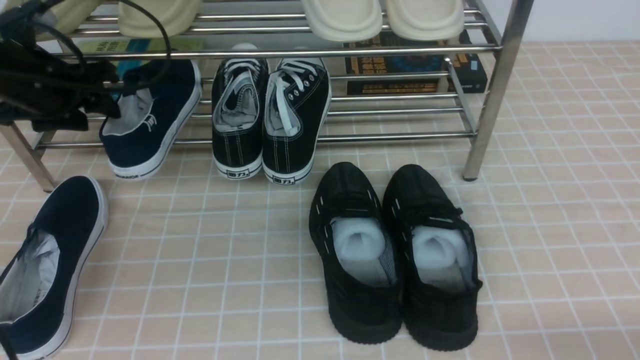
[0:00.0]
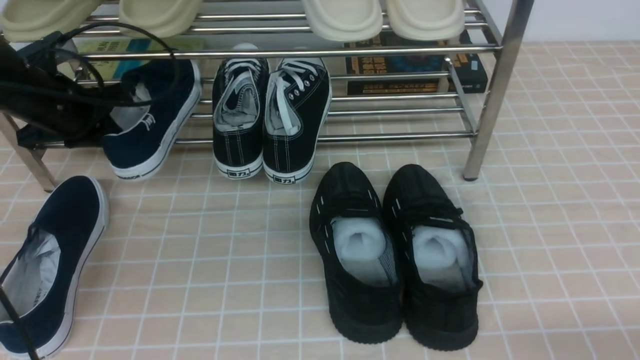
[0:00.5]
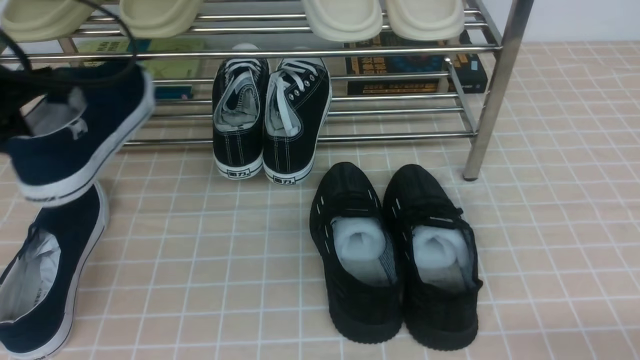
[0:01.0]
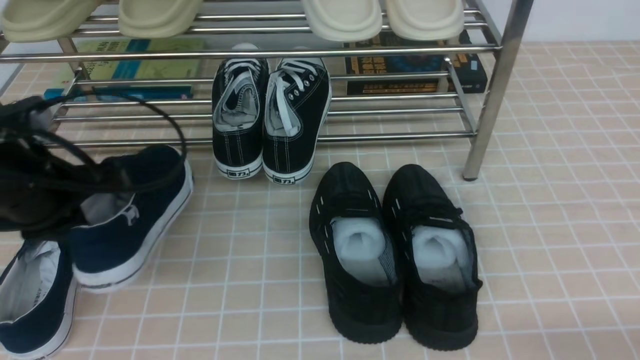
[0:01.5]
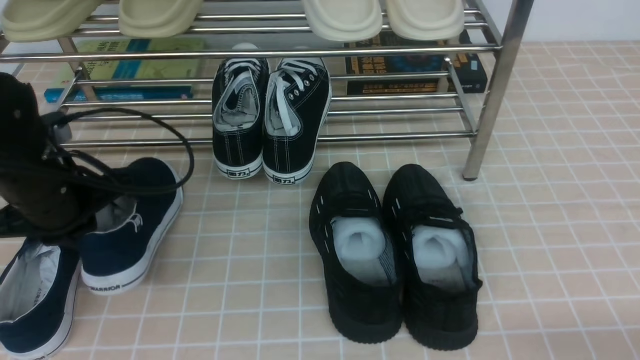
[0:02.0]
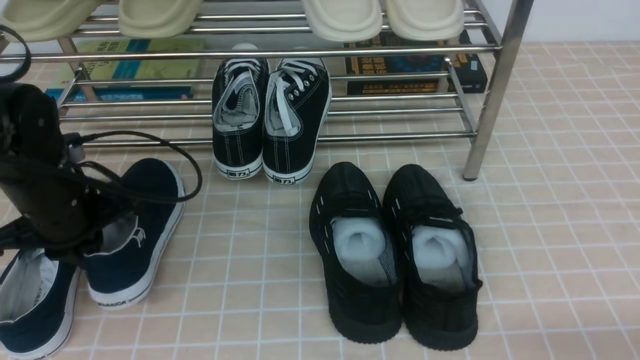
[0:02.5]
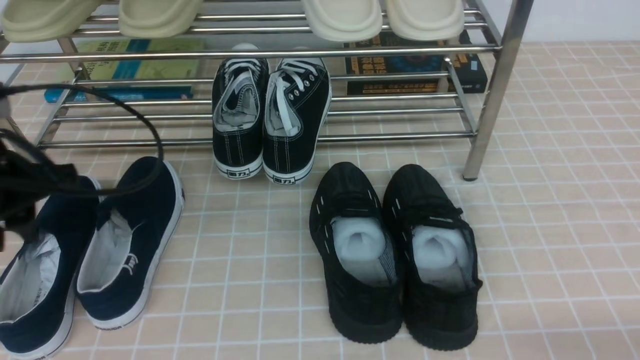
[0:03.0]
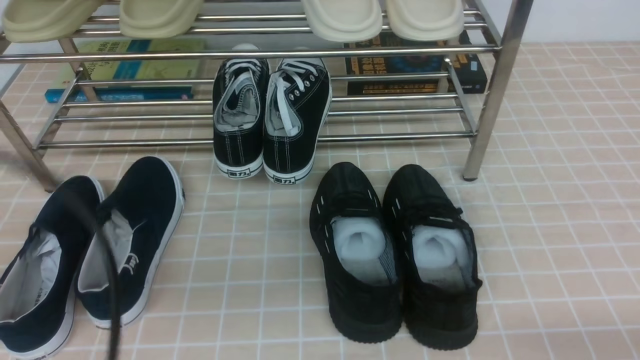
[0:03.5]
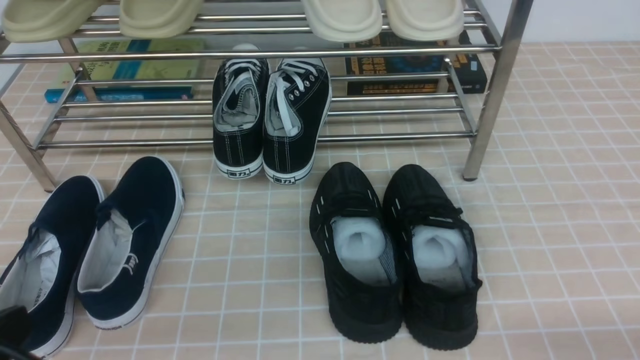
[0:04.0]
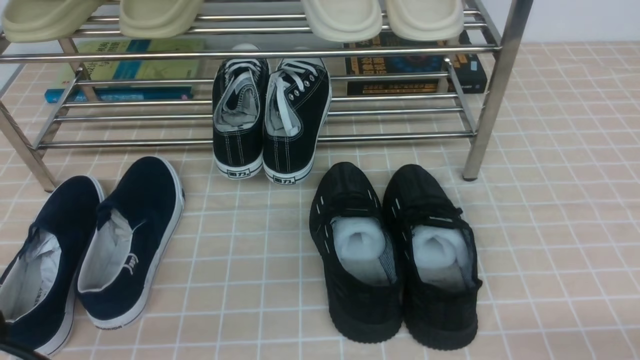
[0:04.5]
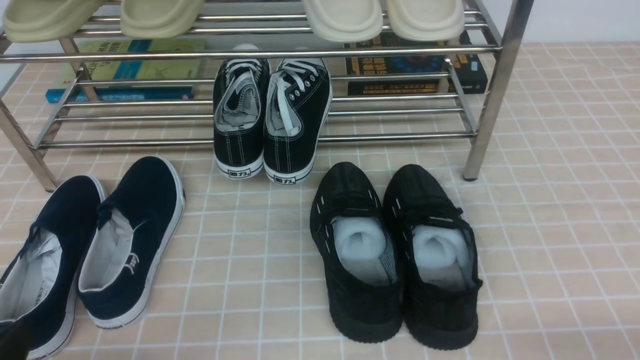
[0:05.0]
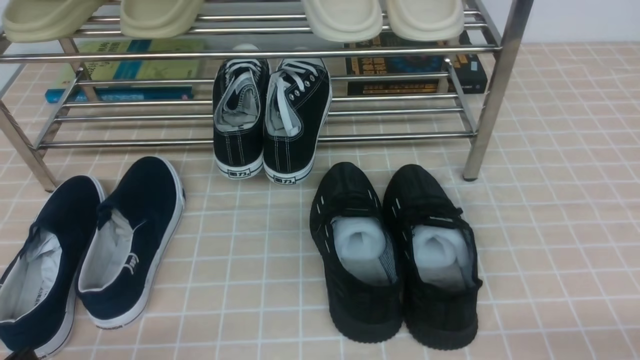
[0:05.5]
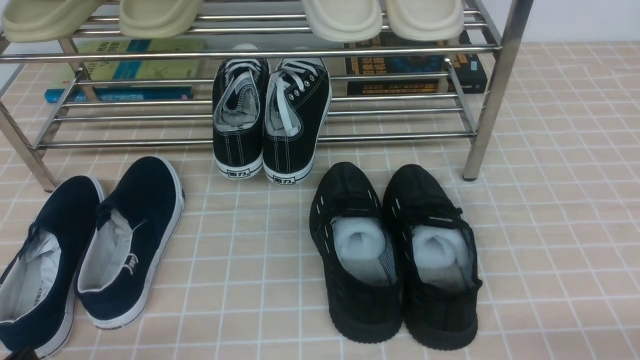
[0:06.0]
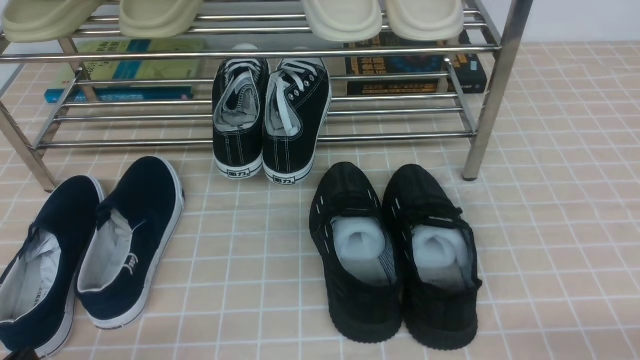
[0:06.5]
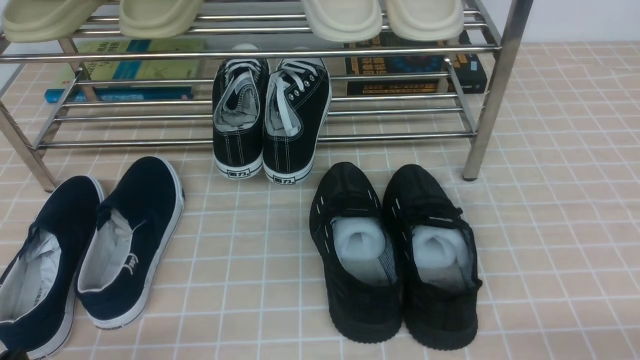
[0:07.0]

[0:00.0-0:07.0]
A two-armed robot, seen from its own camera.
Step, 0:00.5 to 0:02.5: Use your left arm to remove the clamped shoe from the shoe rack and put it down.
0:00.0 to 0:02.0: The left gripper heads backward, covering roughly 10 cm, and closes up.
0:02.0 to 0:03.5: The left gripper moves backward and upward, roughly 25 cm, and opens, then closes again.
0:03.5 to 0:05.0: The left gripper moves downward, approximately 15 cm.
